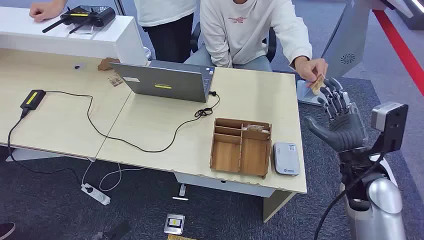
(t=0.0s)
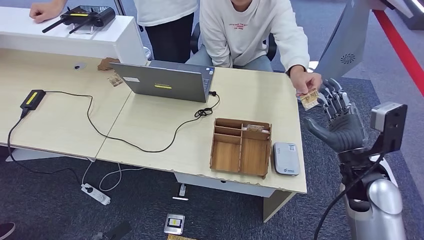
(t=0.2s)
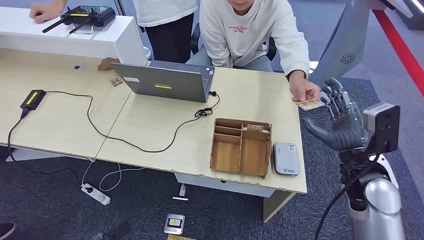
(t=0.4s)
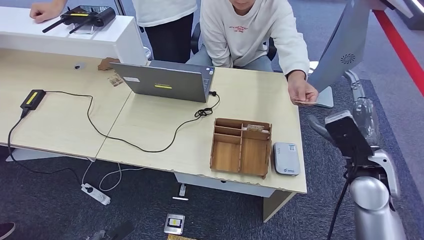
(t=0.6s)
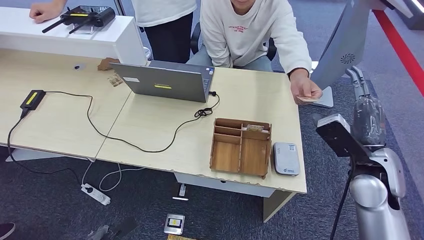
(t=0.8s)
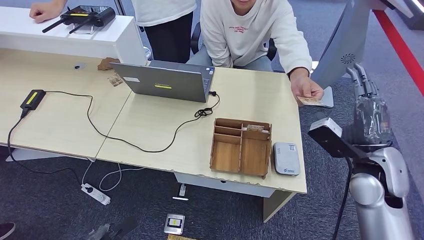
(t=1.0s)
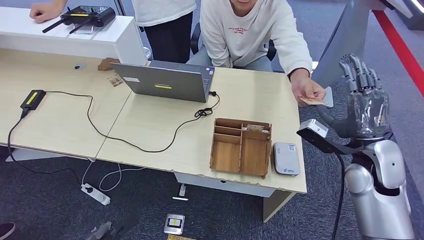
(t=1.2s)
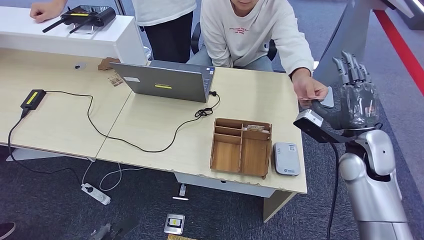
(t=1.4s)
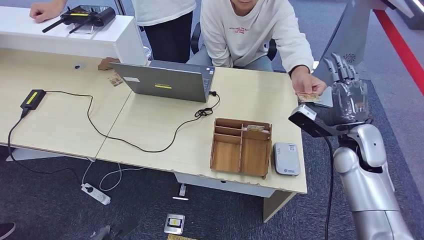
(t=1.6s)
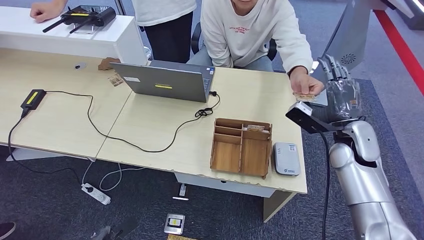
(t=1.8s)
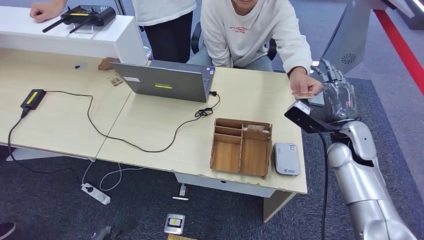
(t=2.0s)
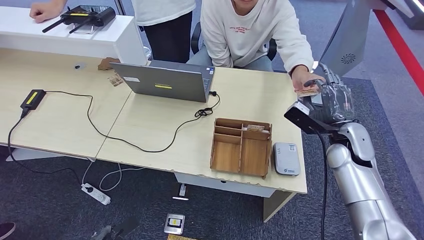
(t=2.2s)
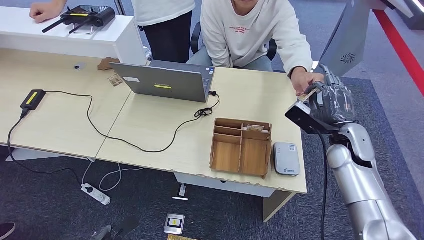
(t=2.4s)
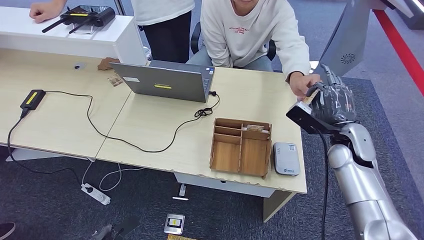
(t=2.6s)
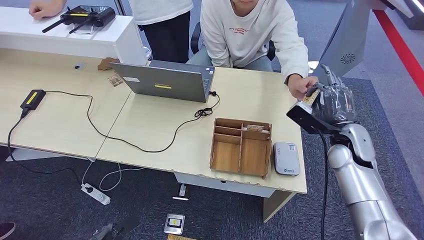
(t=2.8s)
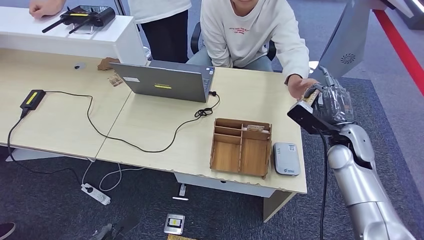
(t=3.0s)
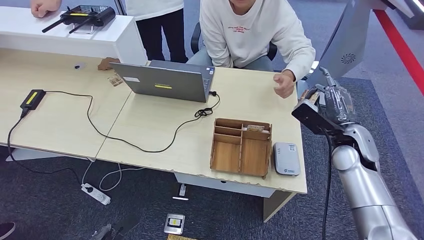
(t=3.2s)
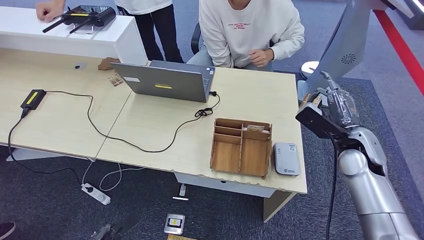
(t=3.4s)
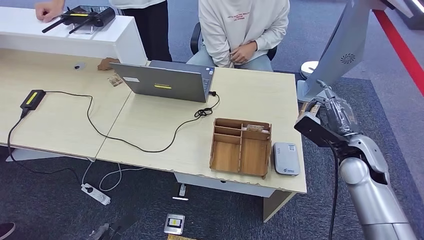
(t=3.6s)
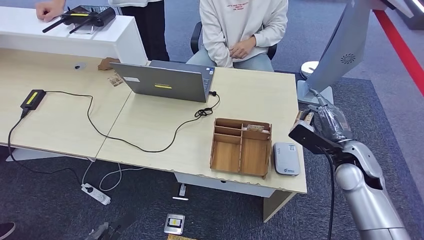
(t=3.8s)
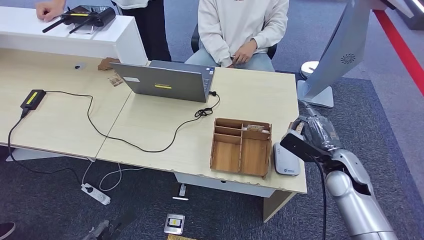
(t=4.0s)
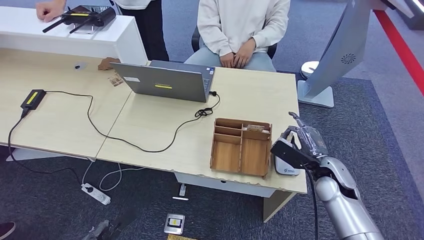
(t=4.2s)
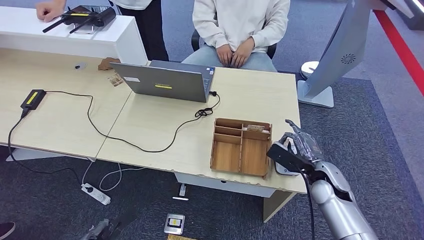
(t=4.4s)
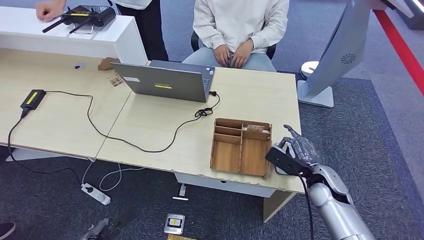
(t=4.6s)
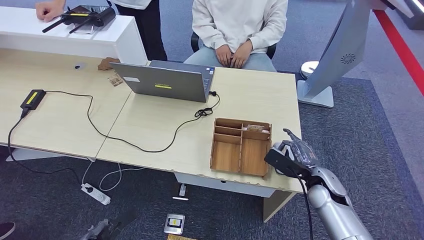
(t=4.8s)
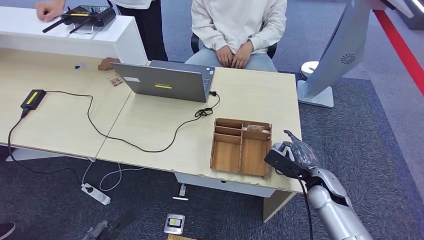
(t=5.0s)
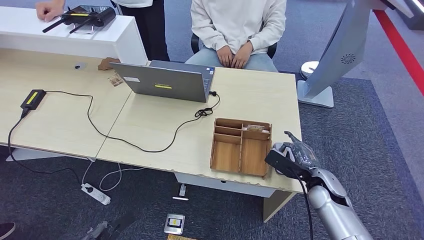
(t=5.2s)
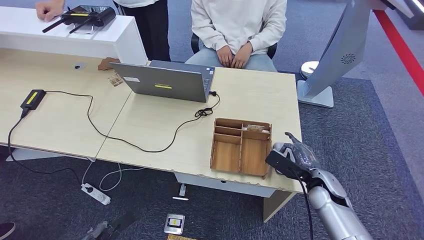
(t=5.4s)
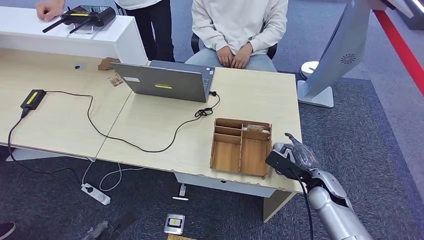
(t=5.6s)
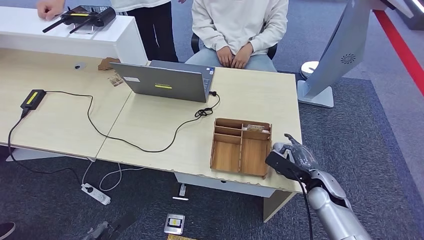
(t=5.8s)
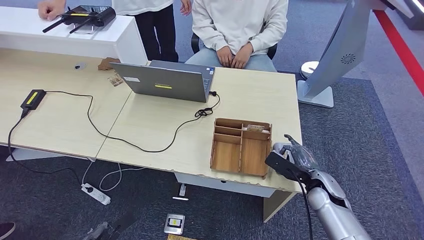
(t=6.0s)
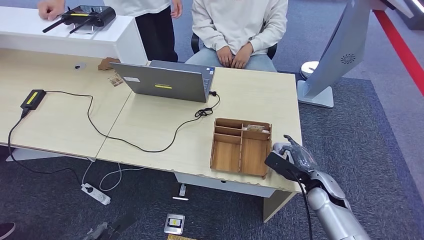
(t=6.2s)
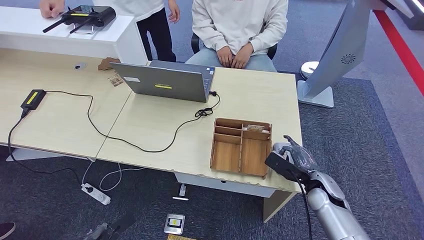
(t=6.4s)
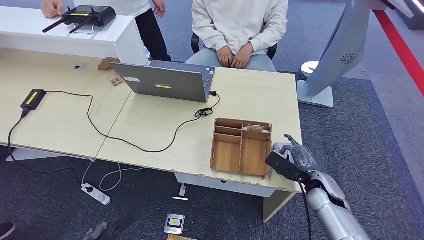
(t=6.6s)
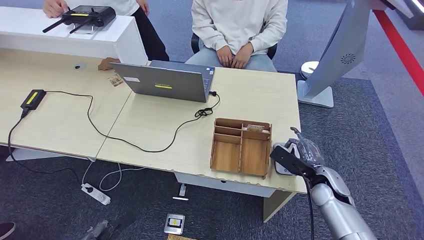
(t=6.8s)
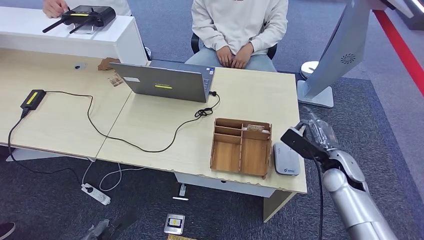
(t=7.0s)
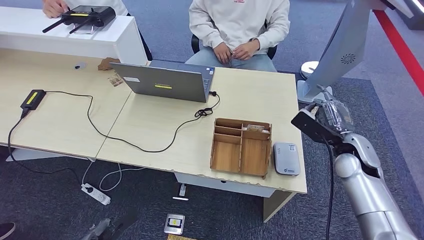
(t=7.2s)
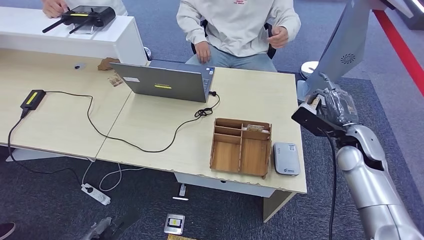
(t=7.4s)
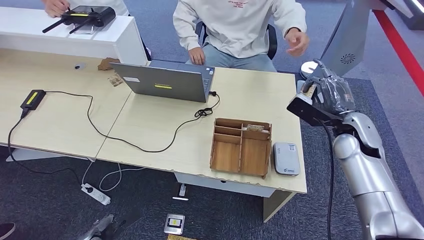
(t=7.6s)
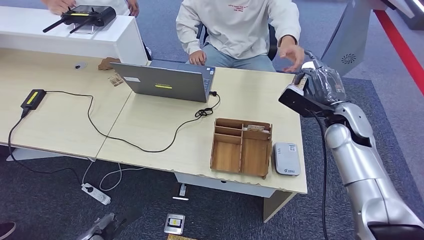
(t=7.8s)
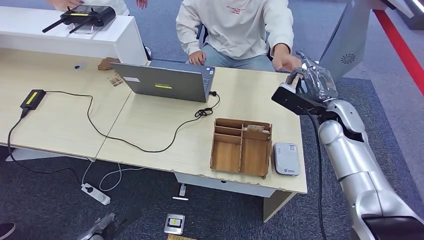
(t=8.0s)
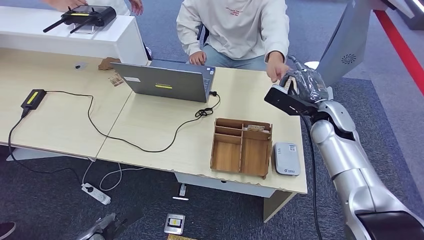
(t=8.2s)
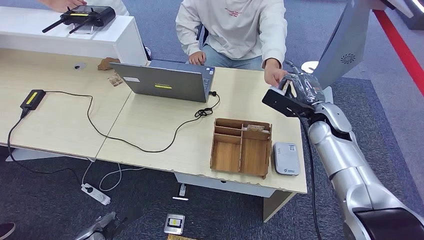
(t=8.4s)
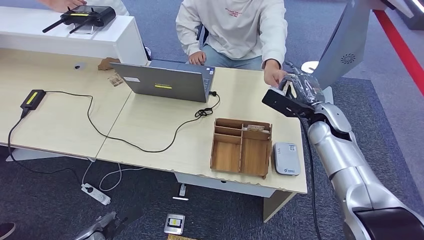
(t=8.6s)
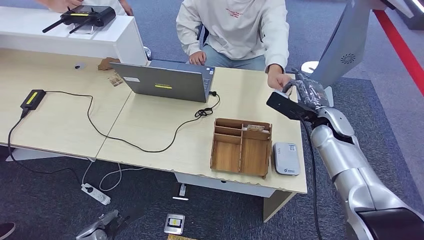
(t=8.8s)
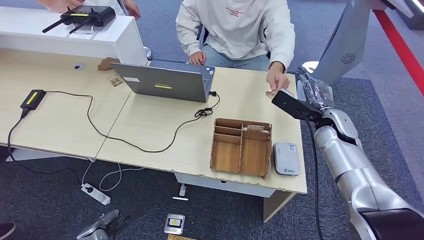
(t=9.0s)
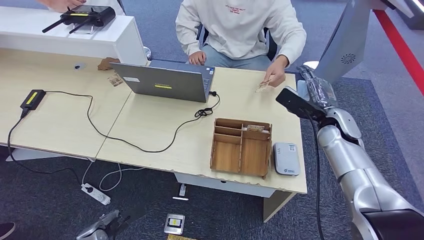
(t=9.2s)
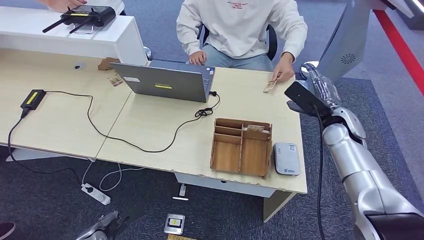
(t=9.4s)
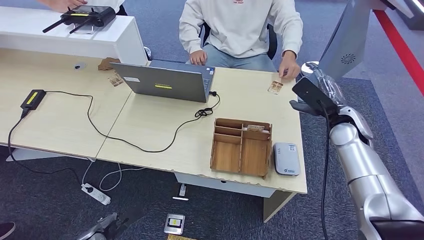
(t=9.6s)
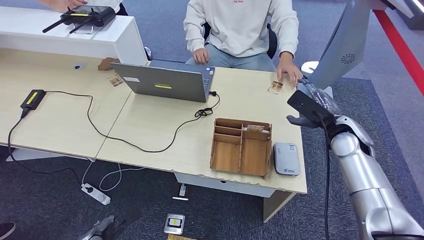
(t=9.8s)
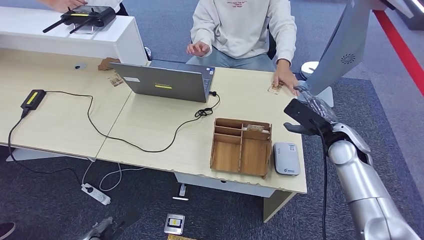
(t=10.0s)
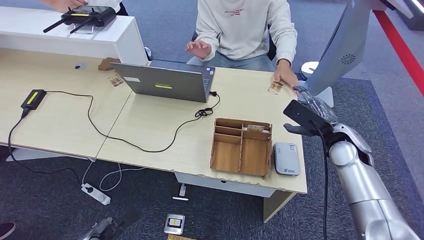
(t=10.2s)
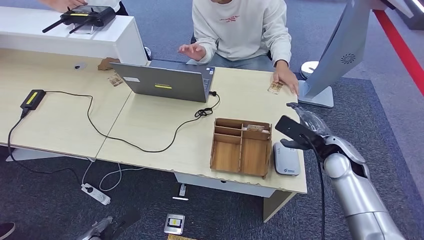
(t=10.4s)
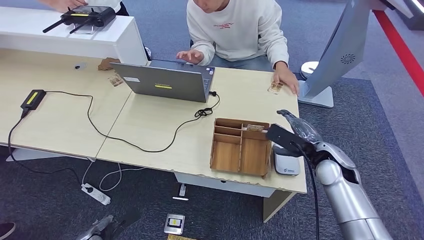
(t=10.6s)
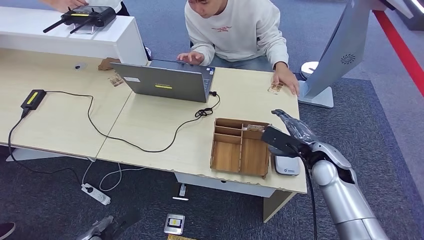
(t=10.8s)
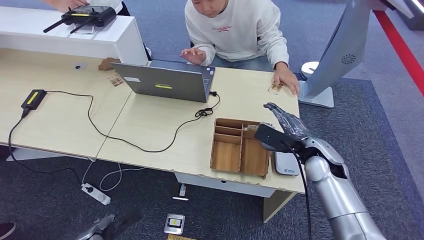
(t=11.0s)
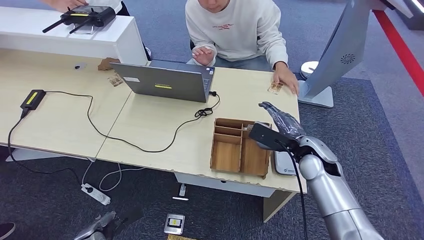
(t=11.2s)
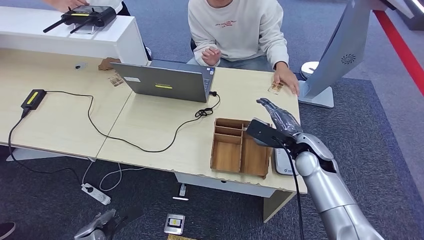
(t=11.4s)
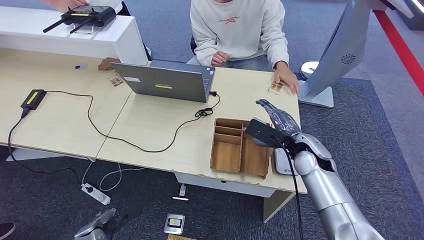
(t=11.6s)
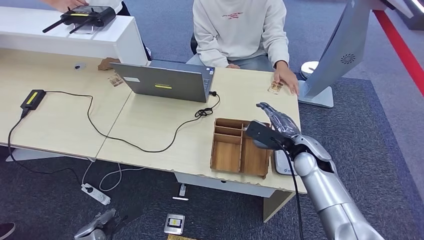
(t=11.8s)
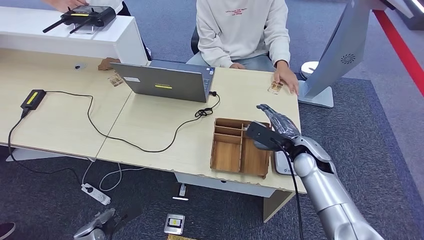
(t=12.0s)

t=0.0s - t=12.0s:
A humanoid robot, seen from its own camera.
Step, t=0.0s - t=3.6s: Take the ID card from the person's hand.
Step, t=4.0s - t=7.2s: Place the ID card on the card reader.
Step, t=7.4s - t=10.6s: Hand the ID card to the person.
t=1.6s - t=3.0s: There are only small adjustments of the hands.
t=3.0s - t=4.4s: The right hand heads downward and backward, covering roughly 10 cm.
t=4.4s - t=6.0s: The hands move only a little.
t=6.0s - t=7.6s: The right hand travels upward and forward by roughly 20 cm.
t=7.6s - t=9.0s: There are only small adjustments of the hands.
t=9.0s - t=10.4s: The right hand goes about 5 cm backward.
t=10.4s - t=12.0s: The right hand travels to the left by some 5 cm.

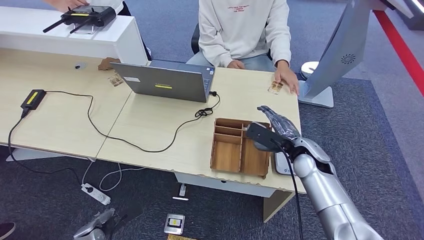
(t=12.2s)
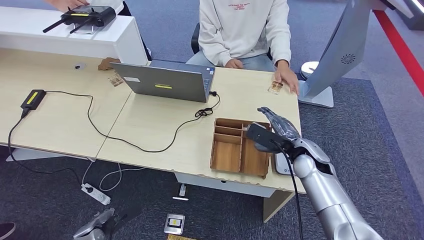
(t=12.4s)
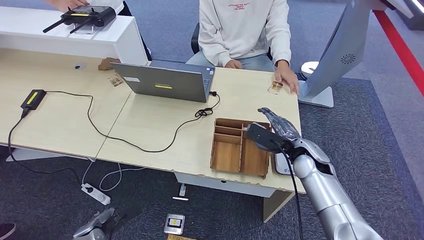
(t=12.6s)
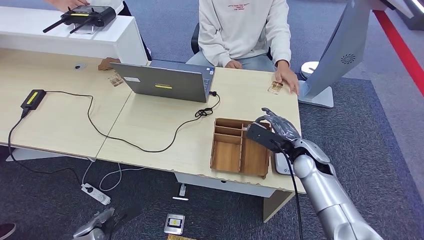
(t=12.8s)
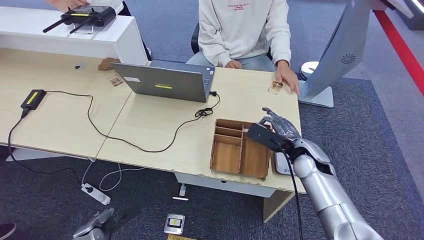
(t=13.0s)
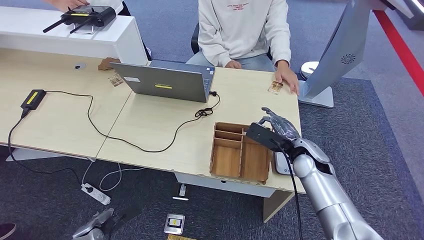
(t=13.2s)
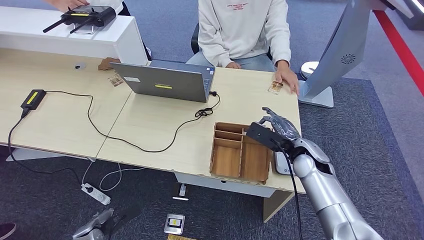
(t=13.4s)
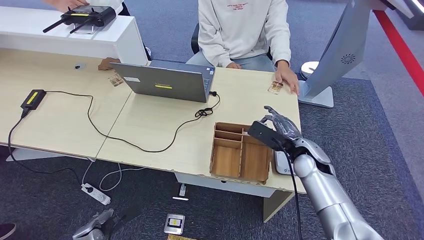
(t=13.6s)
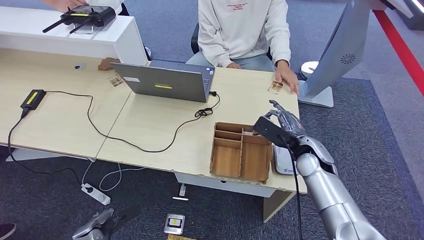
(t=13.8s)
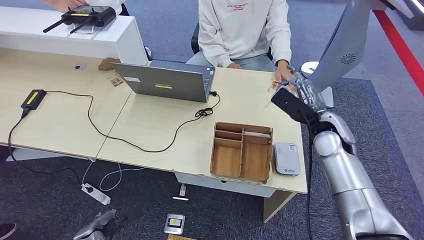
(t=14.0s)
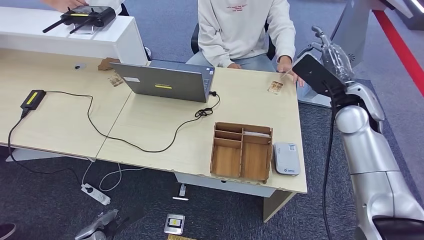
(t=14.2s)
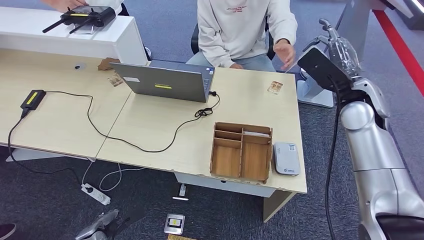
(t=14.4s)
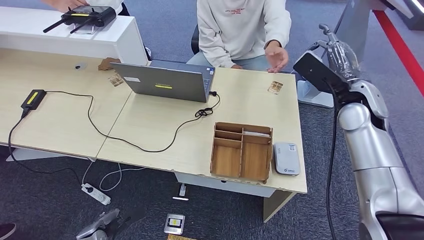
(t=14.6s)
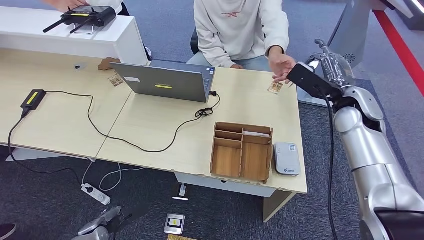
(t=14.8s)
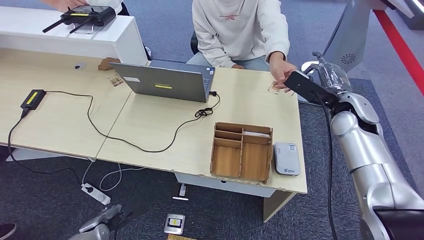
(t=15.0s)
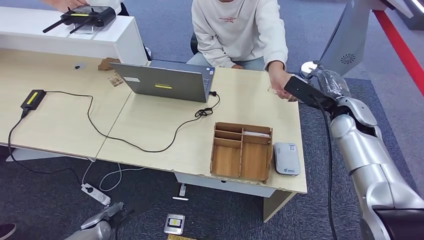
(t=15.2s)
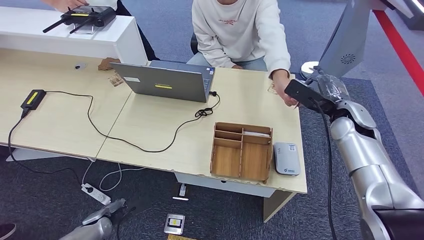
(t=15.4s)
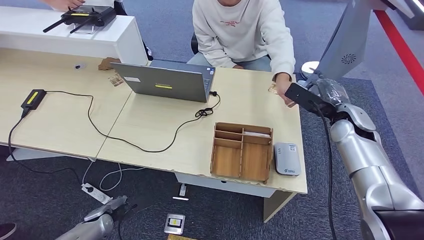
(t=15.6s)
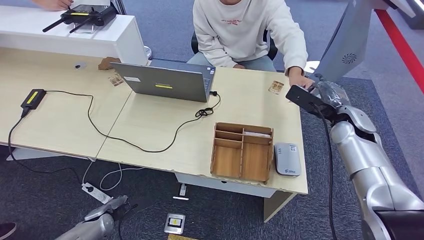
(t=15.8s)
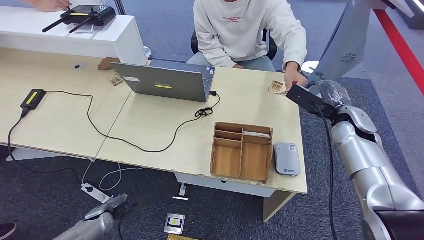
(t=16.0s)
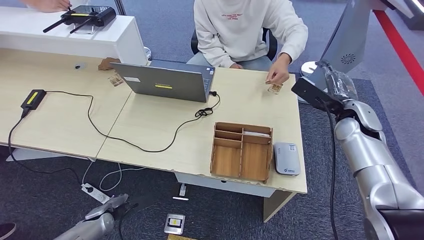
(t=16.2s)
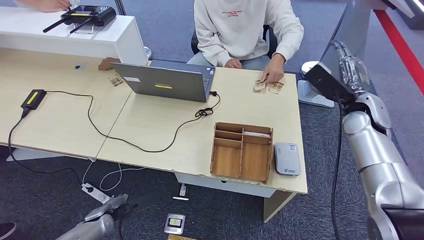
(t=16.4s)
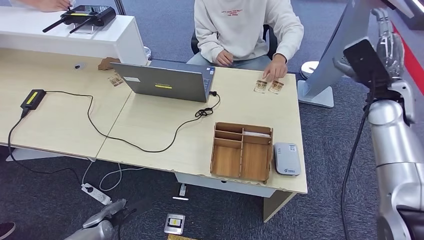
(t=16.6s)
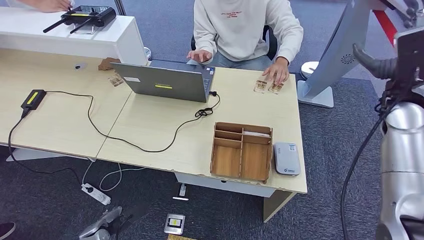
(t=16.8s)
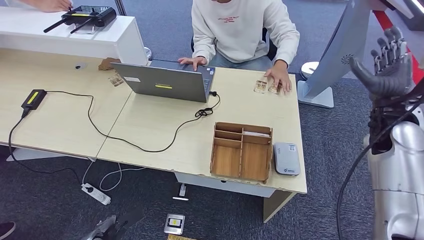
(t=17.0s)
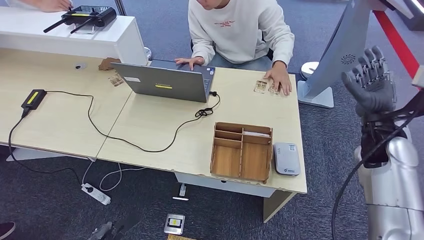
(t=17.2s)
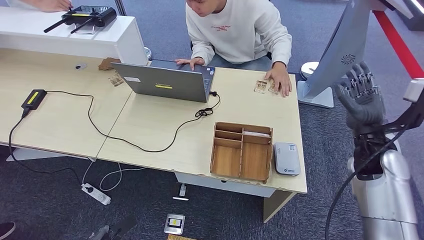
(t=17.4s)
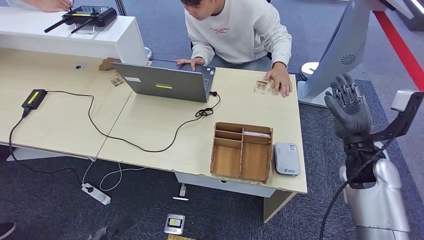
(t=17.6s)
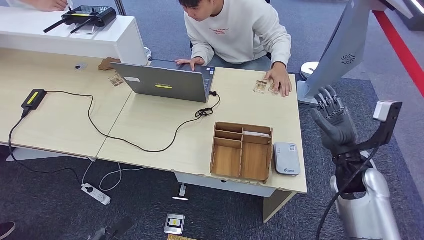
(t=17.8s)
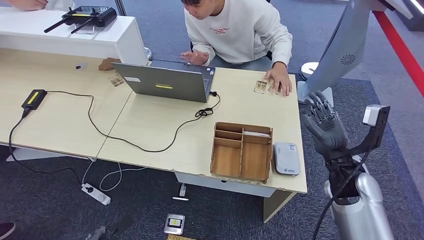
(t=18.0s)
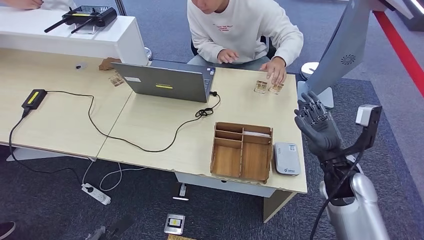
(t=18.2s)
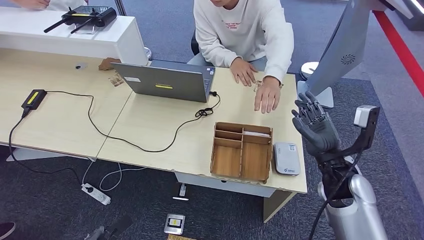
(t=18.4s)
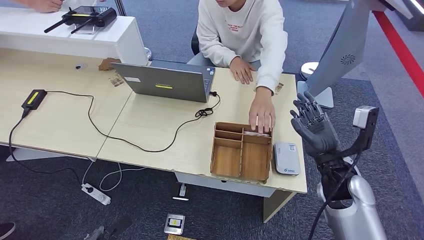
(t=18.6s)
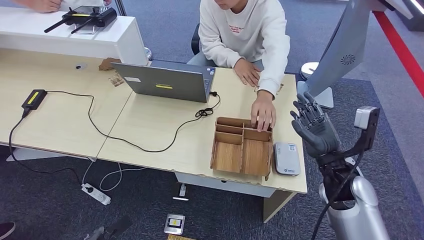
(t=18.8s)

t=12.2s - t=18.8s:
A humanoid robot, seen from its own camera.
Step, t=12.2s - t=14.2s: Pick up the room key from the key card box.
t=12.2s - t=13.8s: There are only small adjustments of the hands.
t=13.8s - t=15.4s: The right hand shifts some 15 cm upward, to the right and forward.
t=15.4s - t=17.2s: Both hands travel together backward, approximately 5 cm. The right hand moves about 10 cm upward and comes back.
